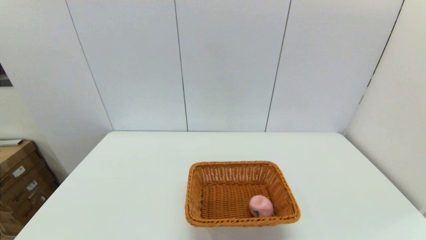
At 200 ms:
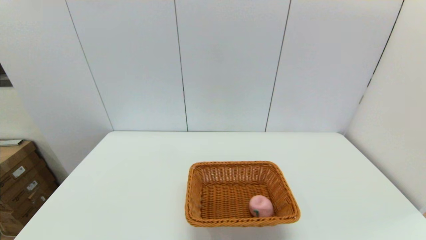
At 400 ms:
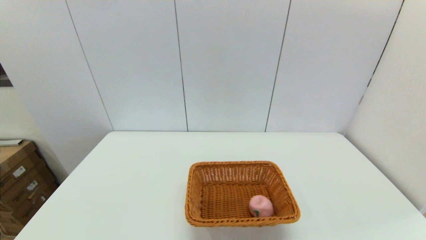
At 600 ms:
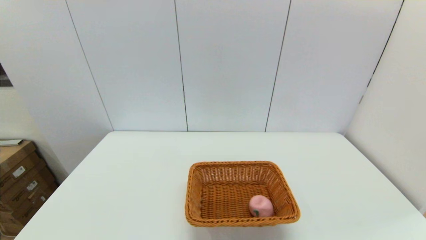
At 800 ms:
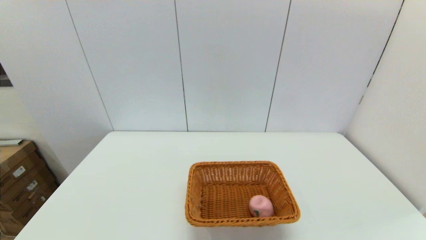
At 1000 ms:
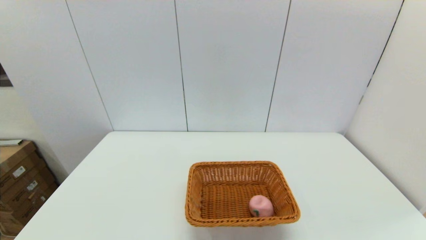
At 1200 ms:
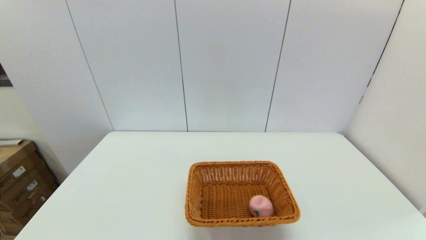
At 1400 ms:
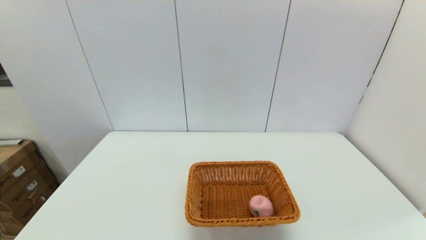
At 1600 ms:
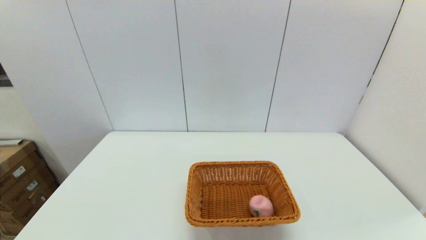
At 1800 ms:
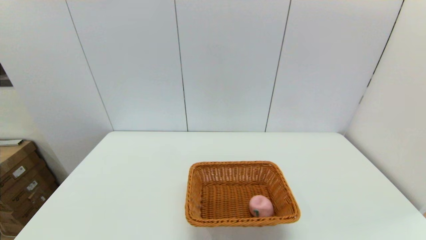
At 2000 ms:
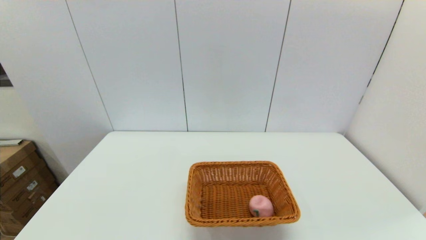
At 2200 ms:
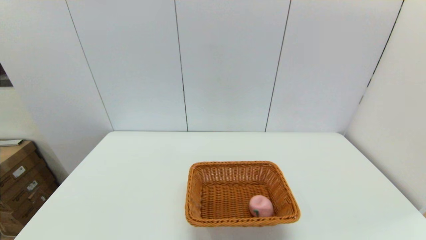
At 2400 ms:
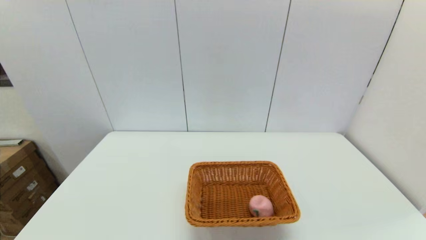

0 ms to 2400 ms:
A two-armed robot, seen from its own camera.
1200 ms to 2400 ms: Both grippers stay about where they are.

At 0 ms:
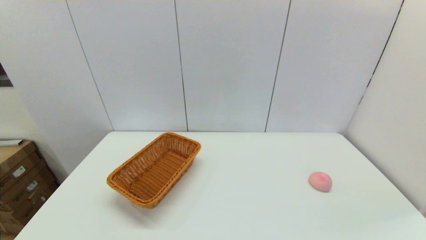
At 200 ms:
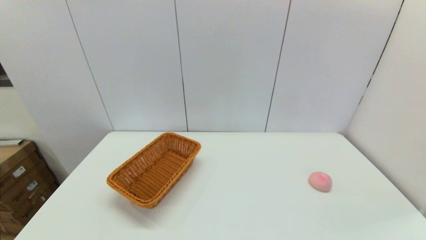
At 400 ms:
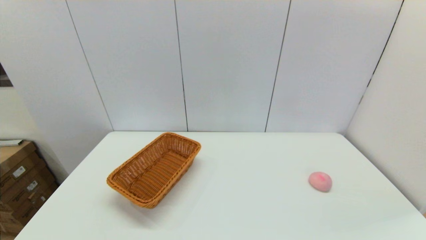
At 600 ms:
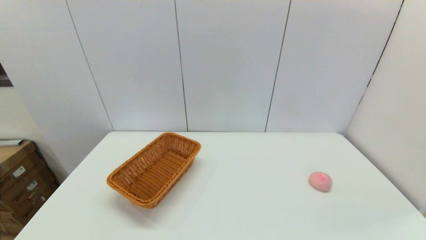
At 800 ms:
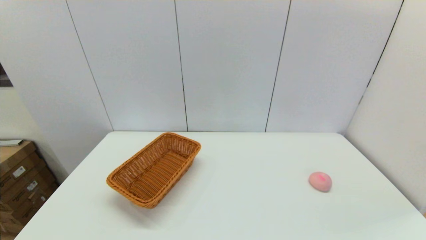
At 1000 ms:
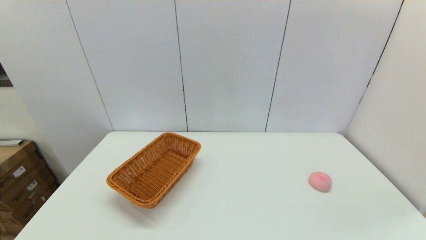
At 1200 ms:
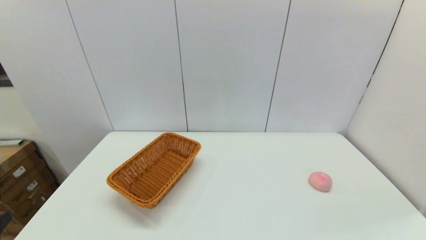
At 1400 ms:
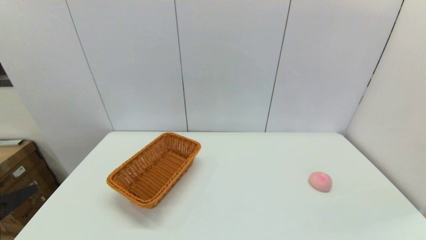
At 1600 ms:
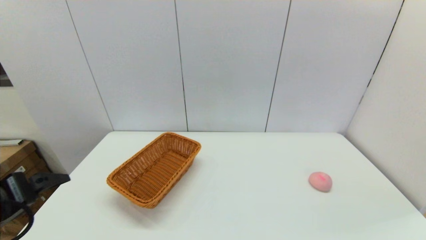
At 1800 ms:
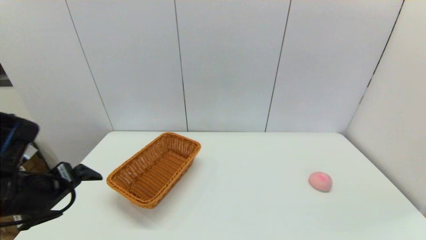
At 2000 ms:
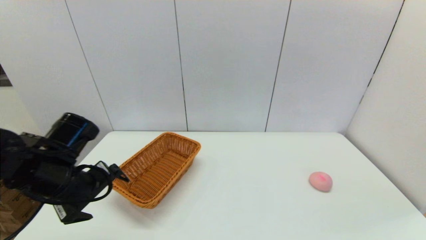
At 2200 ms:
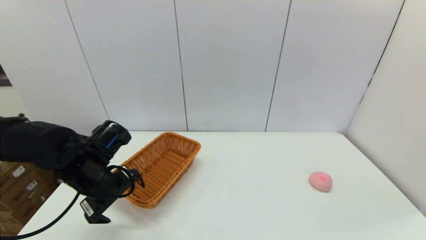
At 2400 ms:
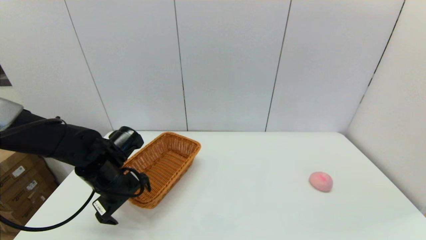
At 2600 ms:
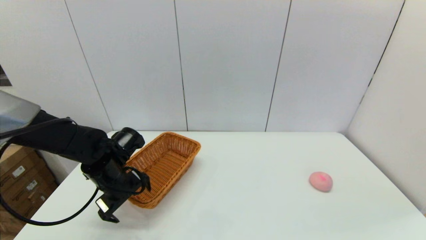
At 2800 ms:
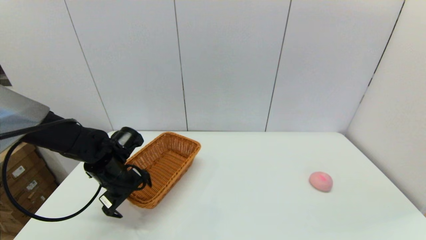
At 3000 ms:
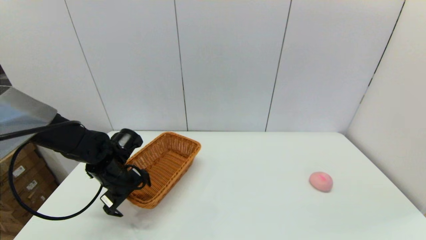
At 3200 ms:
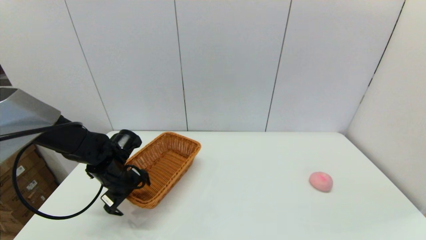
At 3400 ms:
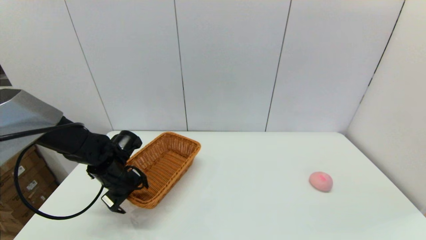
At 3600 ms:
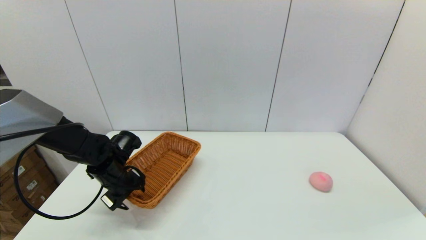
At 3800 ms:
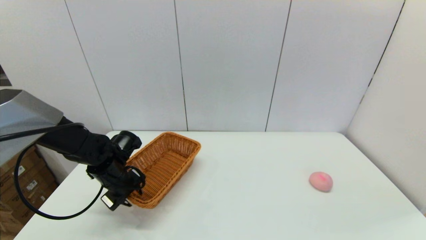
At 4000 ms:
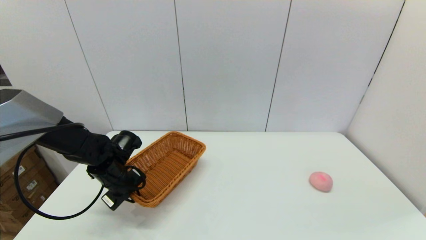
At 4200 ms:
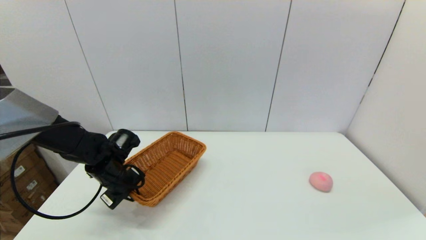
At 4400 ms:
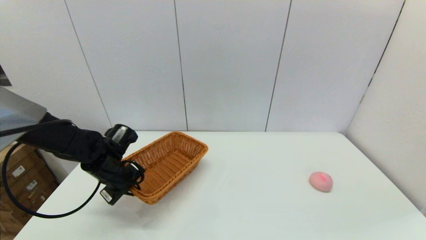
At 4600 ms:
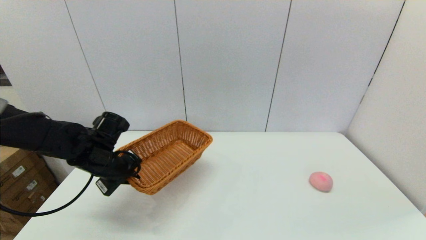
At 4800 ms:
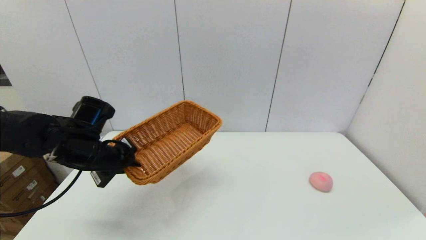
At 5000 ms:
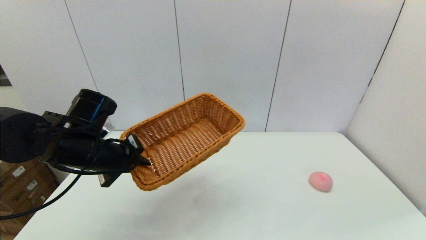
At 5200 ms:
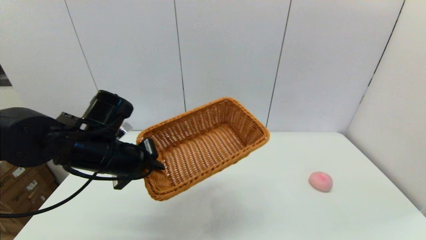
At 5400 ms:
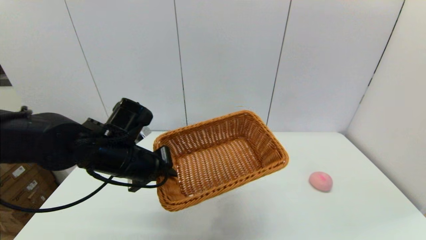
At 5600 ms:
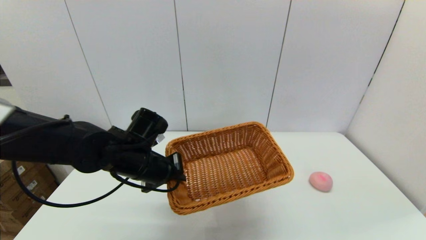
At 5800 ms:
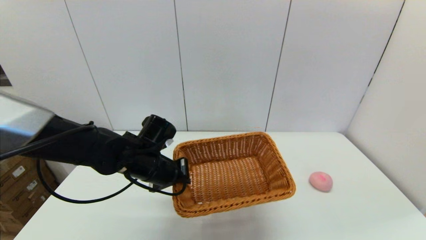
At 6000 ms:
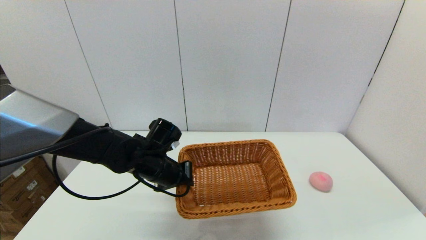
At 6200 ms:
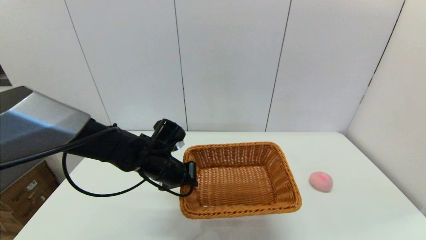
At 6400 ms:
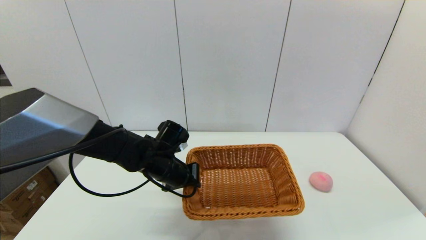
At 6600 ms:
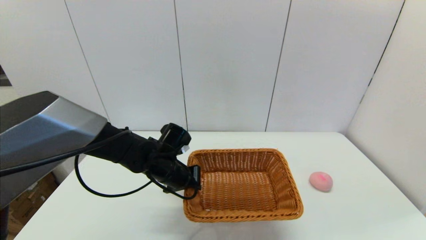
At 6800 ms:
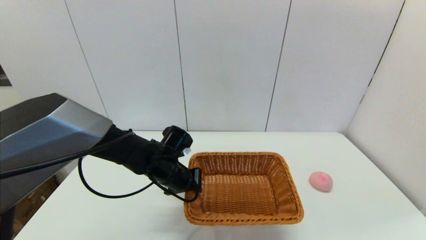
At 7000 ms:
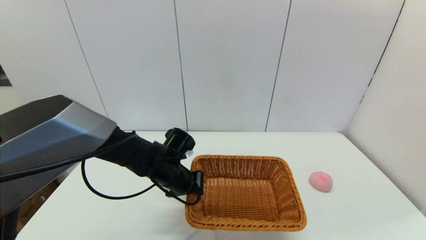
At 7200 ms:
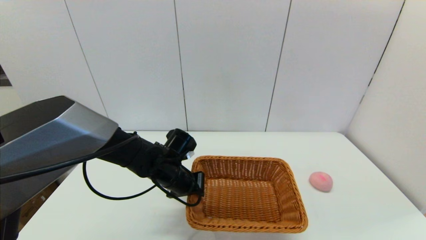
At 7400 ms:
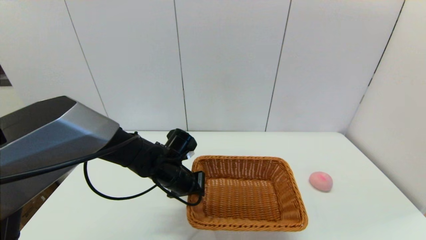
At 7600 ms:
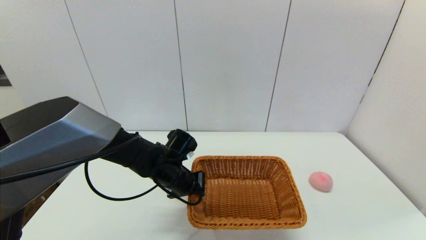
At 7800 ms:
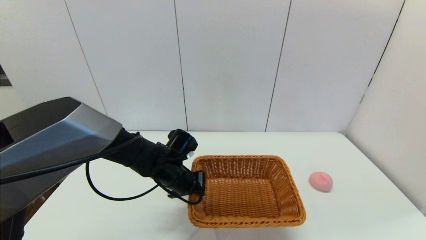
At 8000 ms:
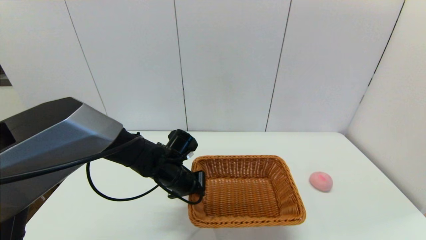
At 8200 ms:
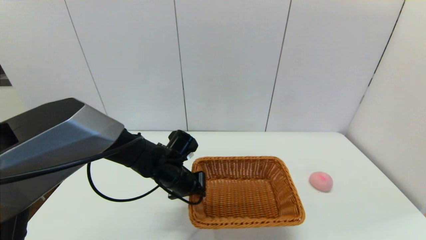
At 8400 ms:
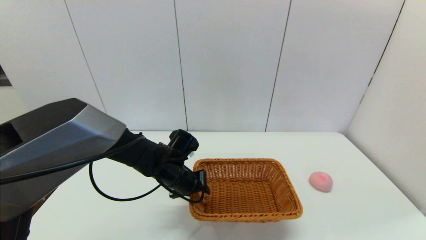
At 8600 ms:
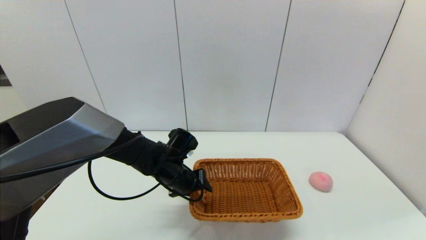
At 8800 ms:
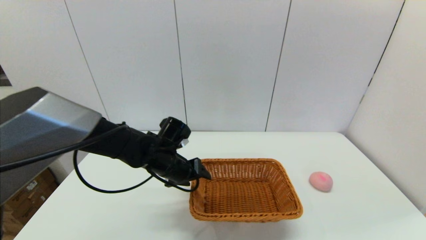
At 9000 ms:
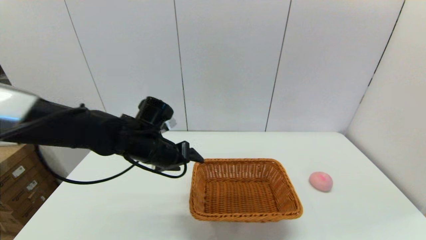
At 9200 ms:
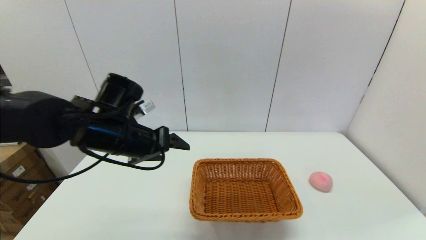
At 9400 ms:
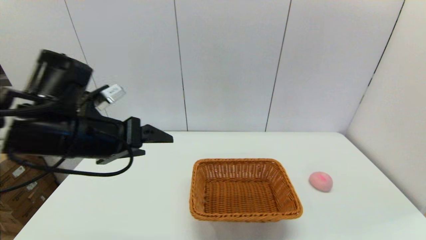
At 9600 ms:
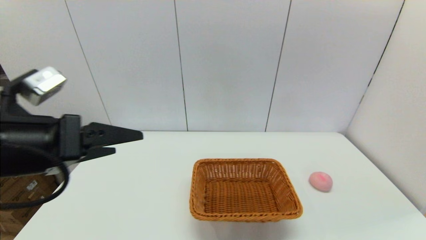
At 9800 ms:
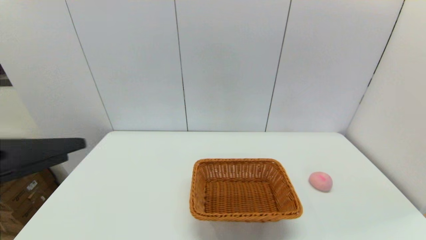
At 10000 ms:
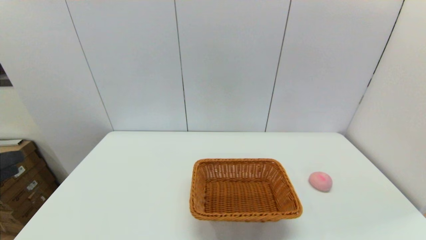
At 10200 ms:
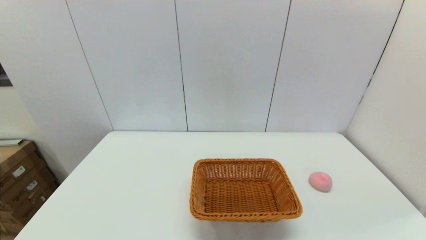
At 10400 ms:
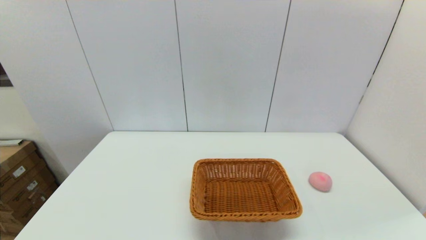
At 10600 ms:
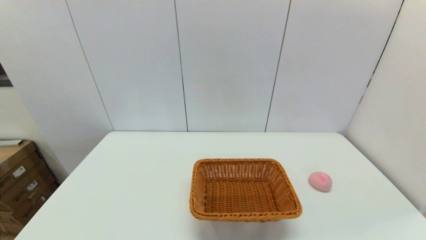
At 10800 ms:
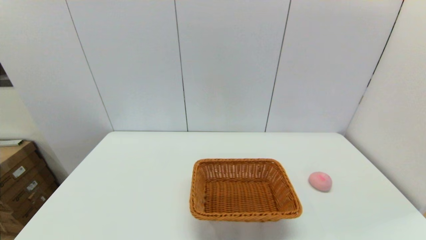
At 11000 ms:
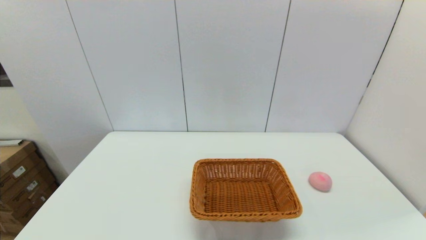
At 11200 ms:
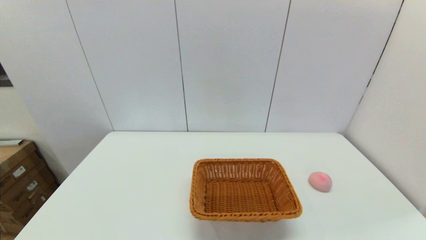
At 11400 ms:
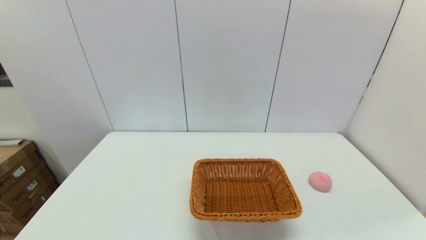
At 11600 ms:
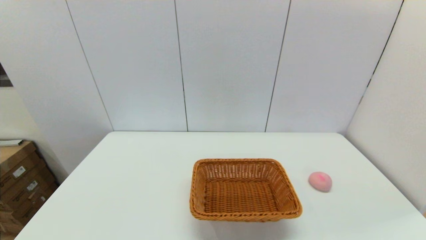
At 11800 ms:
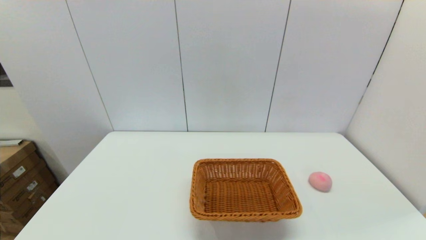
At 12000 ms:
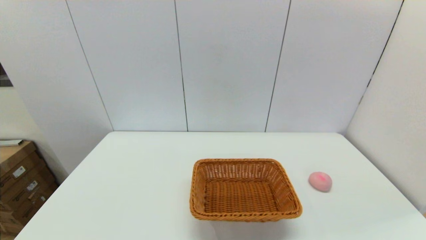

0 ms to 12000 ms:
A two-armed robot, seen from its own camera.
Step, 0 ms to 4000 ms: Grasp the light basket with the left gripper.
Step, 4400 ms to 8600 ms: Place the light basket on the middle of the table with the left gripper.
0 ms to 1600 ms: The left gripper heads forward and upward, covering some 20 cm.
1600 ms to 3000 ms: The left gripper is displaced forward and downward by roughly 25 cm.
3000 ms to 4400 ms: The left gripper closes.
4400 ms to 6000 ms: The left gripper moves to the right, about 10 cm.
6000 ms to 7600 ms: There are only small adjustments of the grippers.
7600 ms to 9000 ms: The left gripper moves upward, roughly 10 cm, and opens its fingers.
9000 ms to 10400 ms: The left gripper is displaced backward and to the left by roughly 35 cm.

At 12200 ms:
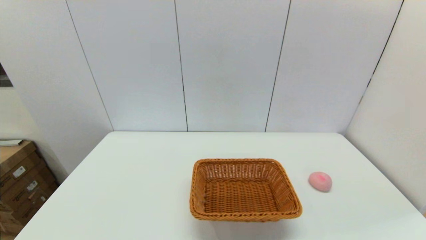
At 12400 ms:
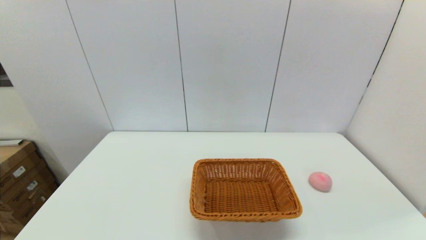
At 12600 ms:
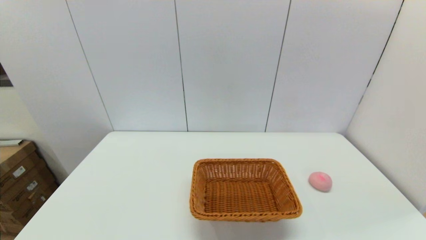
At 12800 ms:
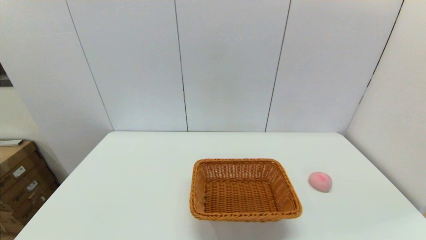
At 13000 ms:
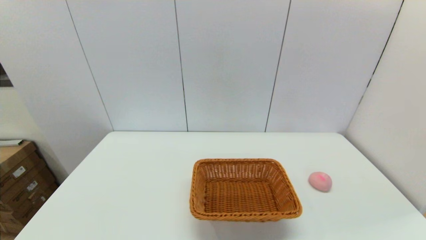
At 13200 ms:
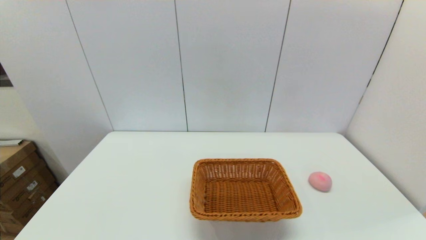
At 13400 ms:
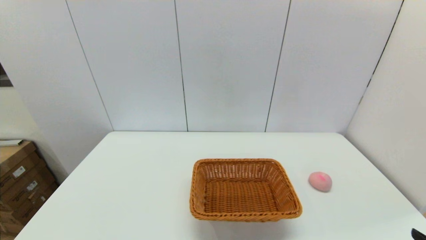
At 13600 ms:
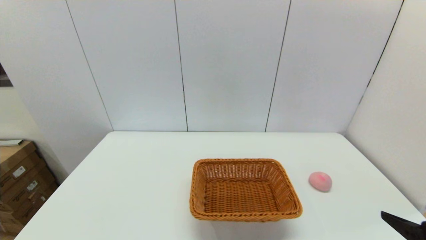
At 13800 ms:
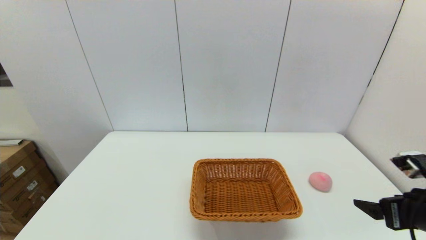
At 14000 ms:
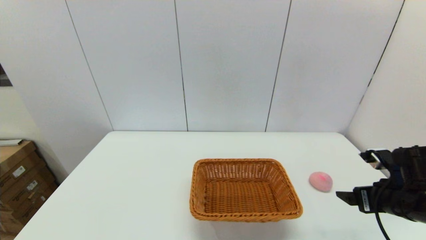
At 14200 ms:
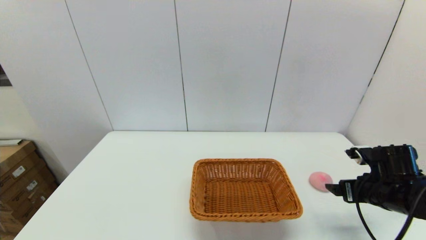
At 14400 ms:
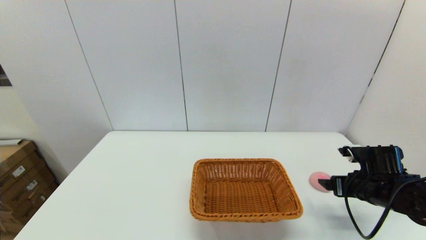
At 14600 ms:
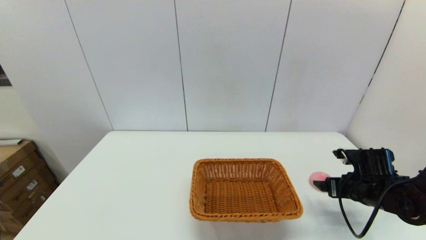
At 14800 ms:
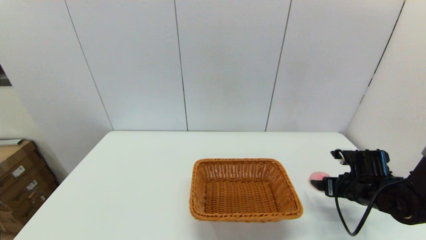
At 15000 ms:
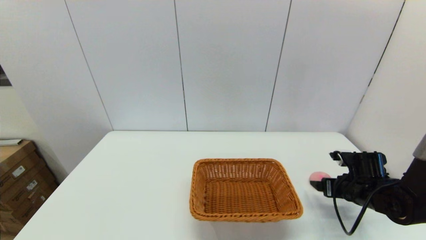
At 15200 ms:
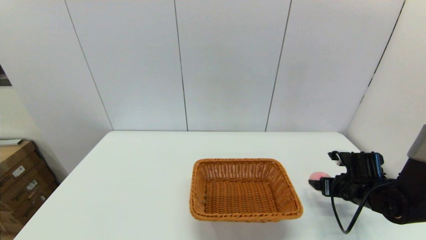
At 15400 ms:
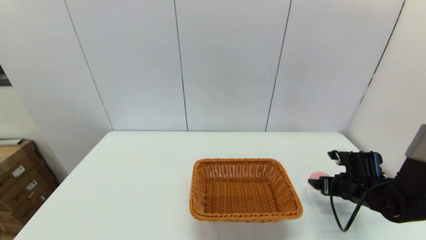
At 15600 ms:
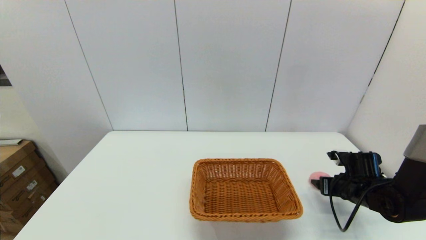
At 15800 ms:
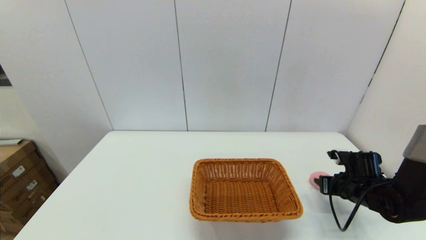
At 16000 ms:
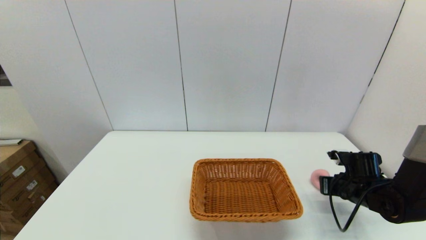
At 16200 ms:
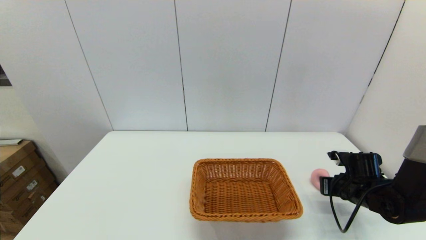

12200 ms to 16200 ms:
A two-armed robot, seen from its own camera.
Step, 12200 ms to 16000 ms: Grasp the peach with the right gripper.
12200 ms to 13600 ms: The right gripper shifts approximately 15 cm forward and upward.
13600 ms to 14800 ms: The right gripper goes some 20 cm forward and downward.
14800 ms to 16200 ms: The right gripper closes its fingers.
